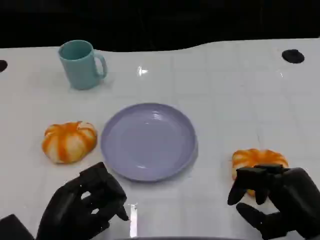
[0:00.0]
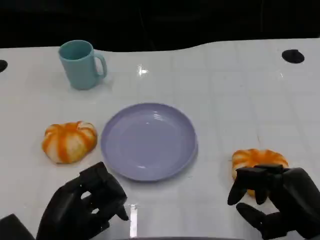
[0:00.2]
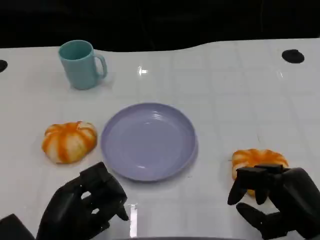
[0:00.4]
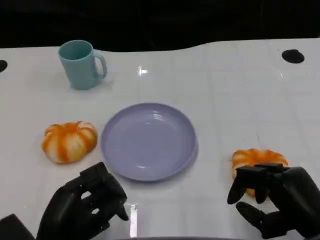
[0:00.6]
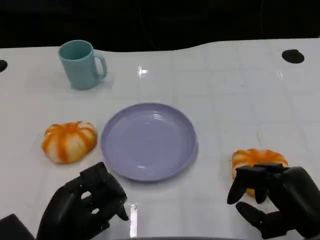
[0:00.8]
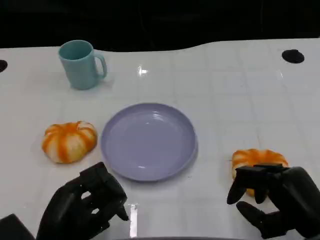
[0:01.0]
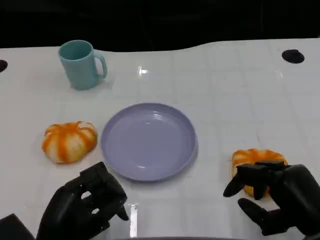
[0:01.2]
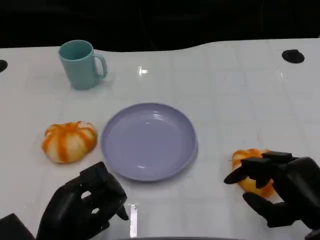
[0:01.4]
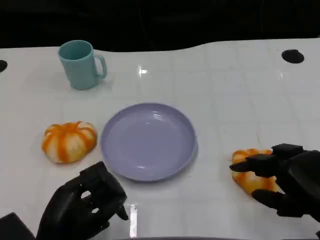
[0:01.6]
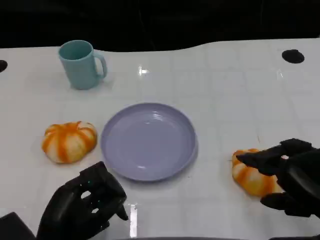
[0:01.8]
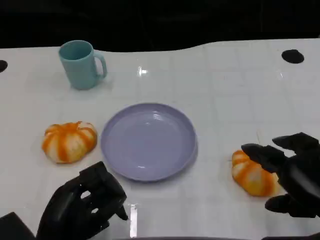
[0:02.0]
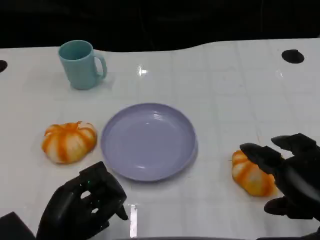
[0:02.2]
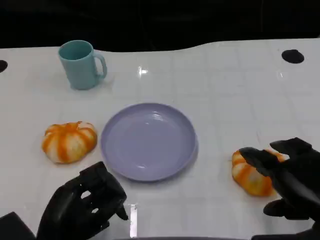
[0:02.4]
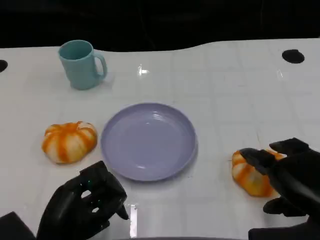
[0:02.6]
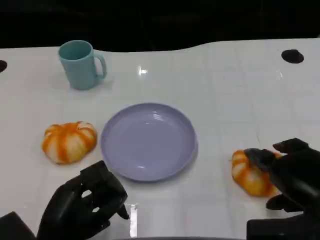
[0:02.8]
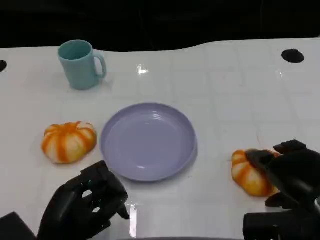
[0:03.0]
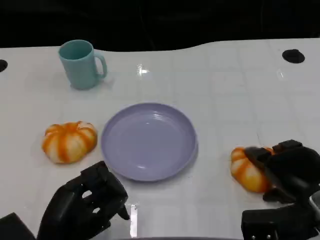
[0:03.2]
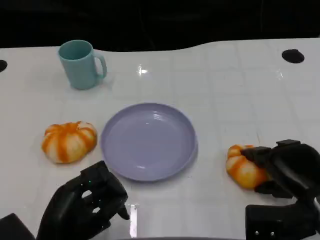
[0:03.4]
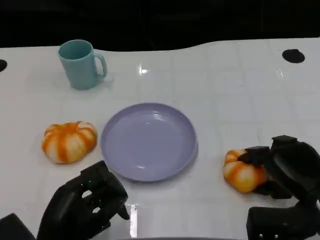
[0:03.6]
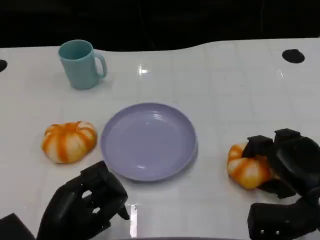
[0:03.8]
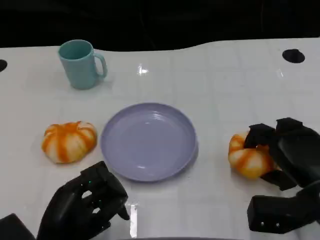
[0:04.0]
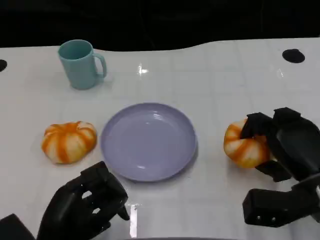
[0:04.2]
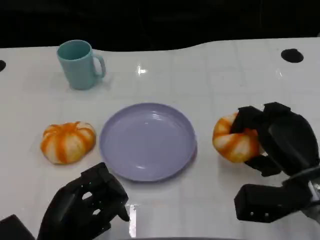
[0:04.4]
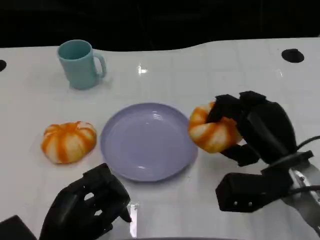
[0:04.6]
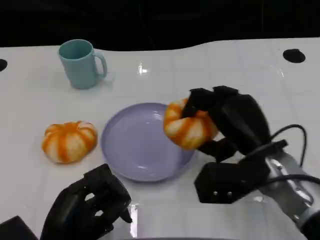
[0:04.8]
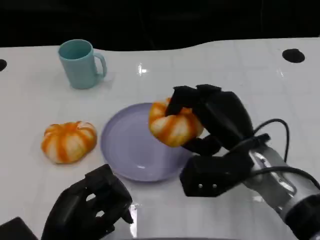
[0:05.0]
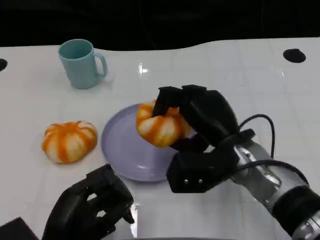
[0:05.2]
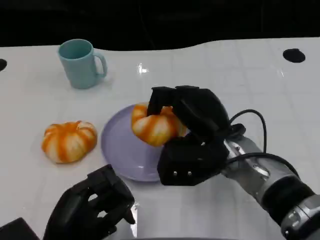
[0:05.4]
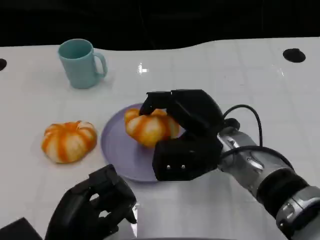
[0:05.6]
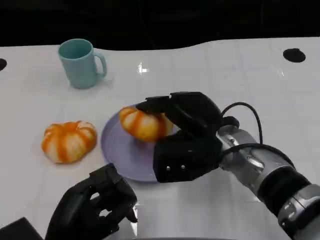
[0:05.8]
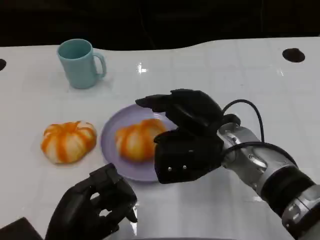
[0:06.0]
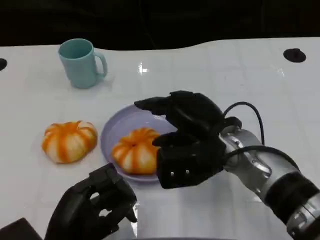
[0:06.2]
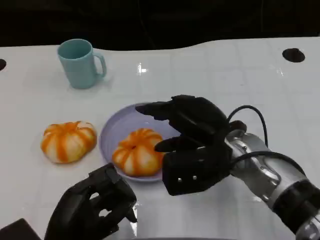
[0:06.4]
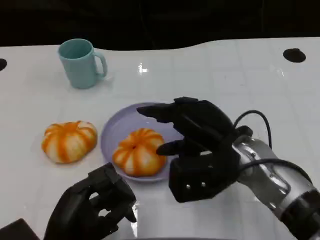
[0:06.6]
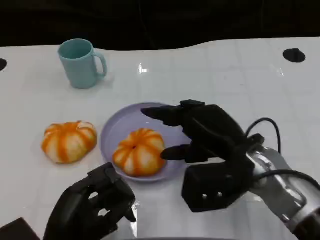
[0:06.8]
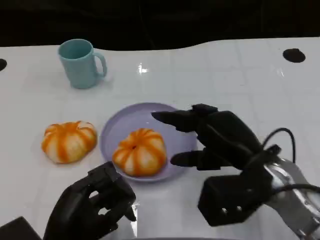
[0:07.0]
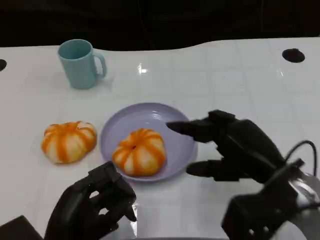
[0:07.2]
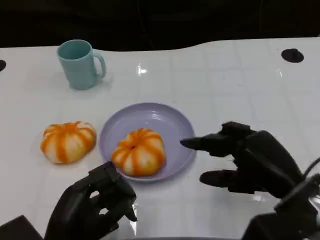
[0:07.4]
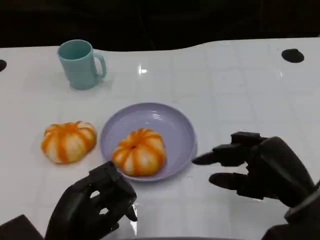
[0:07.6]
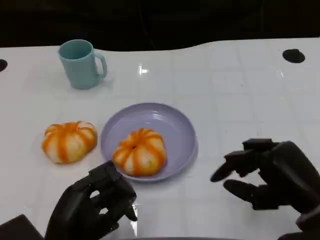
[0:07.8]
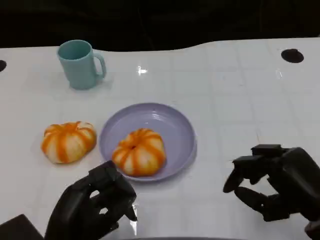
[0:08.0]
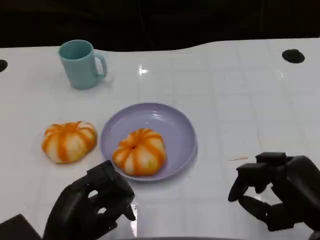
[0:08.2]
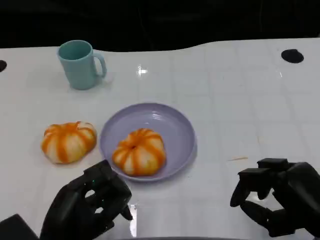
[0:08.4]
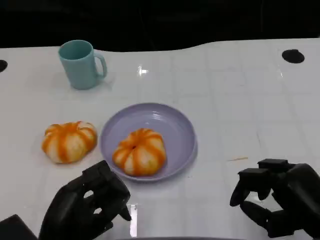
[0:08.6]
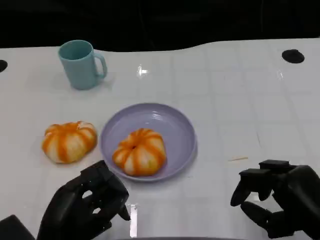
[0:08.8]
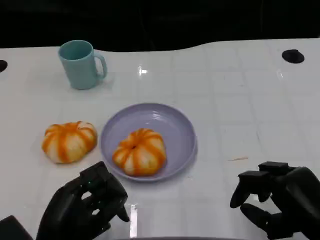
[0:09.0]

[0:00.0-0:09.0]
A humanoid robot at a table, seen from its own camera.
Task of the whole recording: Grasp the bread from the table and place it into the plate.
0:00.0 to 0:01.6: The right hand ends up approximately 5 cm from where it was.
0:01.6 to 0:03.0: The right hand shifts by about 5 cm.
0:04.4 to 0:06.0: The right hand heads to the left, covering some 10 cm.
0:06.0 to 0:07.6: The right hand travels to the right and backward by about 15 cm.
0:07.6 to 0:09.0: The right hand ends up roughly 5 cm from where it was.

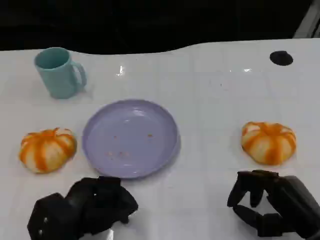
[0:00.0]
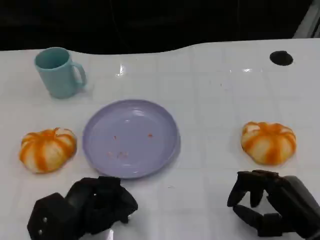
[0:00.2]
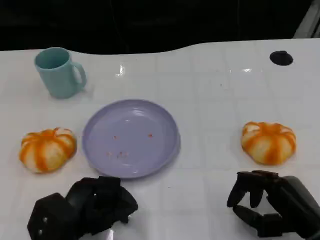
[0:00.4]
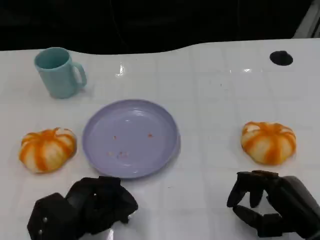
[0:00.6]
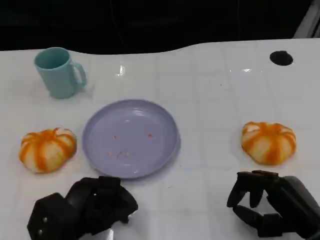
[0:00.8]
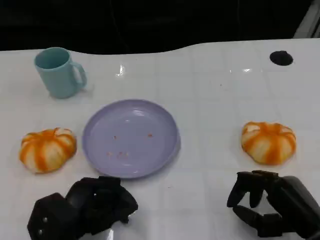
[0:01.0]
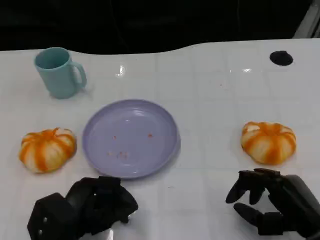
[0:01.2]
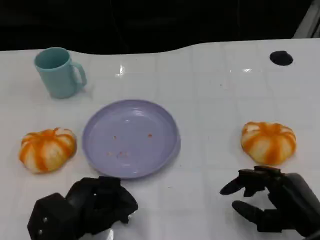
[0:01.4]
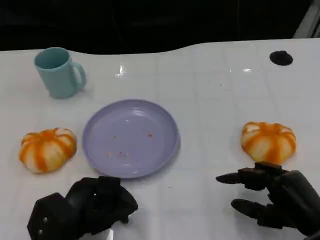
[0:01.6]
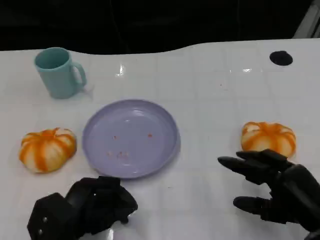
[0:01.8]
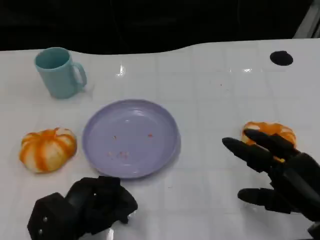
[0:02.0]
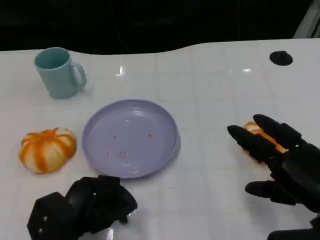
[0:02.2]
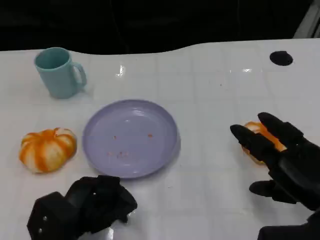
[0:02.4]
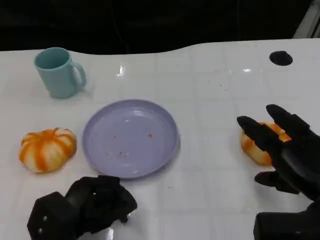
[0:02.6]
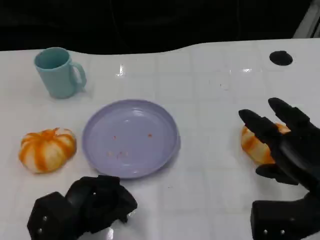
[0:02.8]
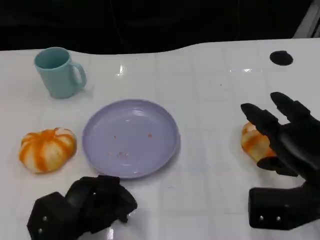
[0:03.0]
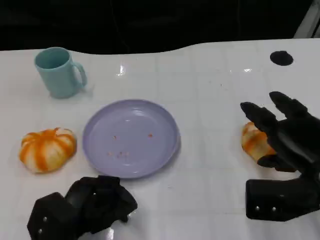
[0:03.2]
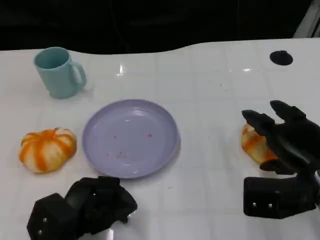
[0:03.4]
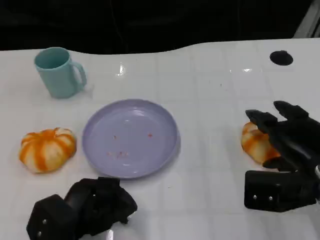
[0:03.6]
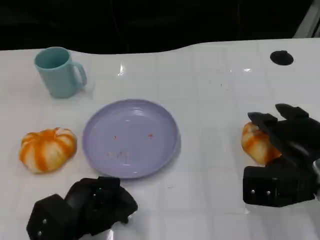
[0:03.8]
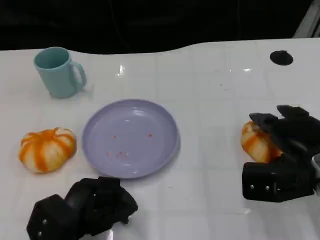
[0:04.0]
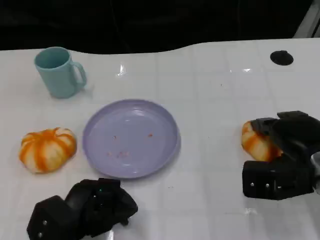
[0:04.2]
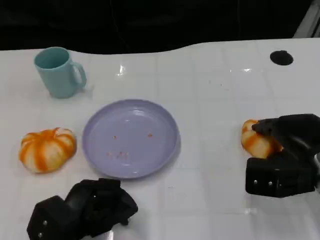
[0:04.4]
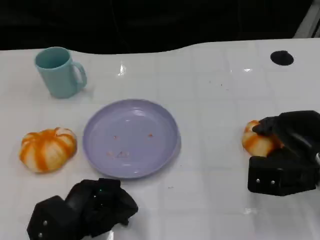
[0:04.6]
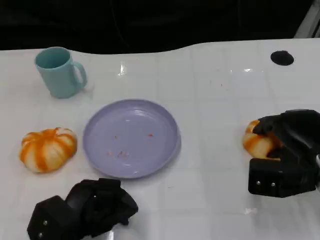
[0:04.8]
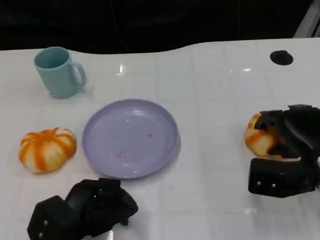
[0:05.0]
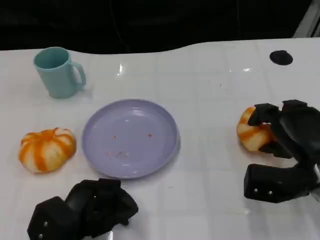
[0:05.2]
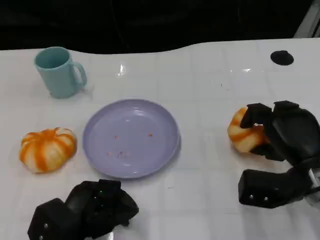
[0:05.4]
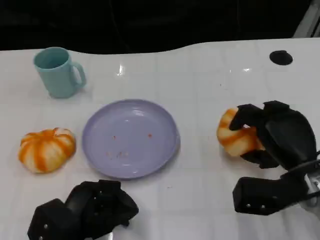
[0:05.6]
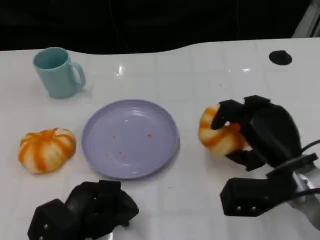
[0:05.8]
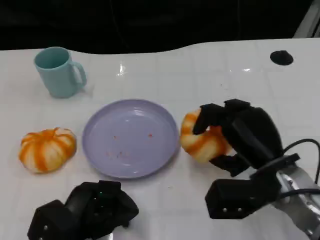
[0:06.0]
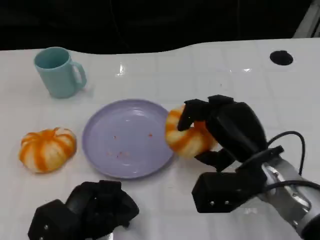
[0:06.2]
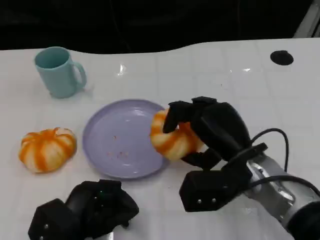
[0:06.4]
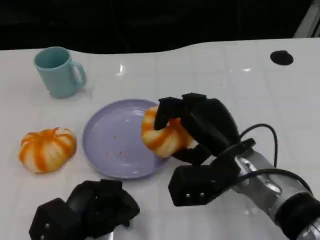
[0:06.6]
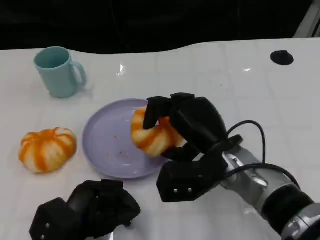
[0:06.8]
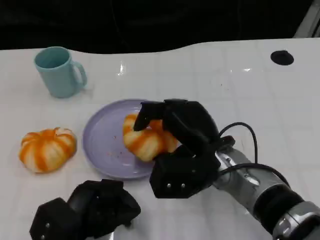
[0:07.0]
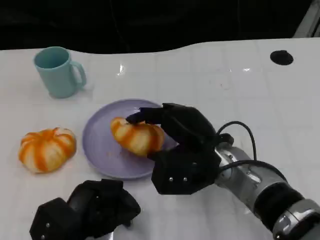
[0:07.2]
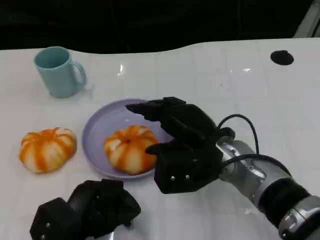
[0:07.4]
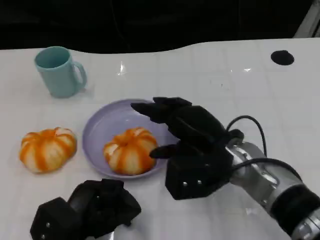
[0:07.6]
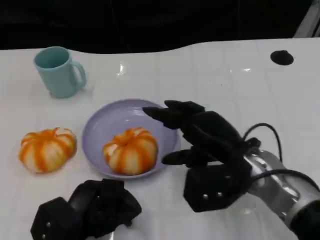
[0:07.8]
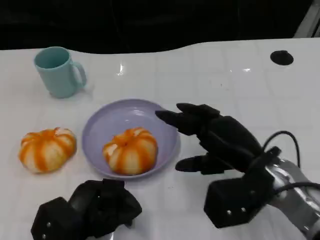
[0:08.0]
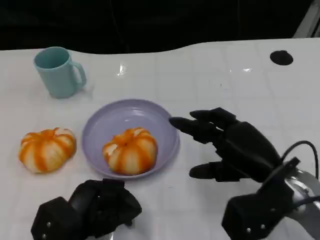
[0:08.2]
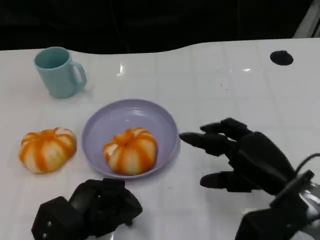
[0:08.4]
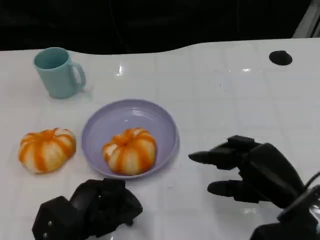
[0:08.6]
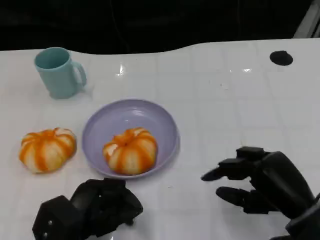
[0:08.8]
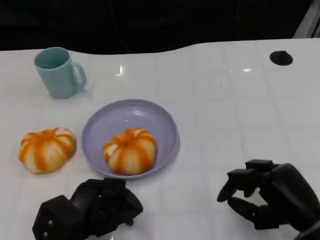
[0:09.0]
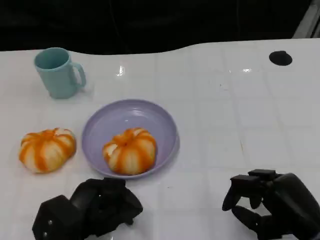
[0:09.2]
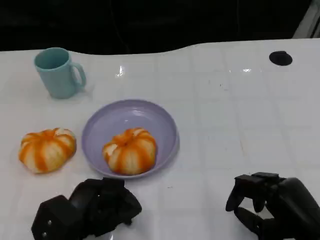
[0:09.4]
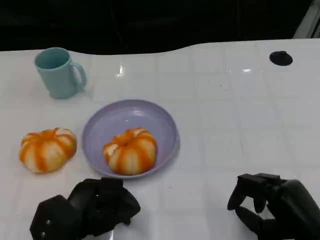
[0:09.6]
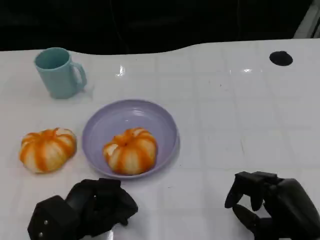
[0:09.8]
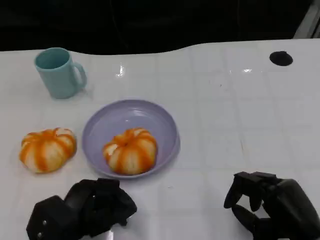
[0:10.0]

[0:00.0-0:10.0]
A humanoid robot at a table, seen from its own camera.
Task of the whole recording: Grasp the bread from the table and place it into the plate.
0:00.0 to 0:01.4: The two hands keep their place.
0:01.4 to 0:02.8: The right hand travels upward by approximately 5 cm.
0:02.8 to 0:04.2: The right hand shifts about 5 cm forward.
0:05.8 to 0:07.2: The right hand moves to the left, about 10 cm.
0:07.2 to 0:08.6: The right hand heads to the right and backward, covering approximately 15 cm.
0:08.6 to 0:10.0: The right hand shifts by roughly 5 cm.

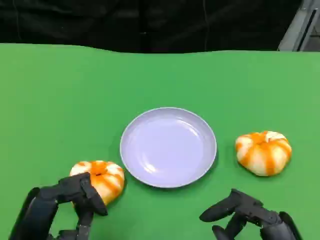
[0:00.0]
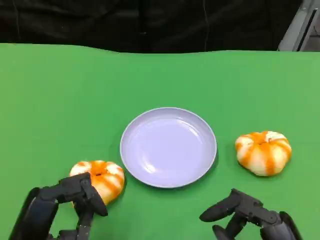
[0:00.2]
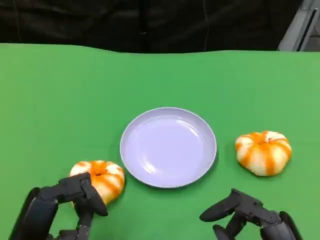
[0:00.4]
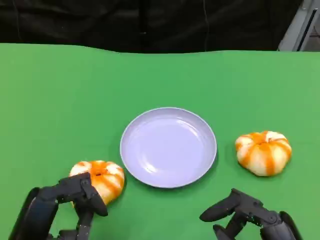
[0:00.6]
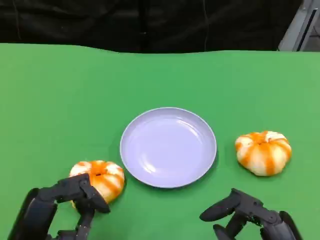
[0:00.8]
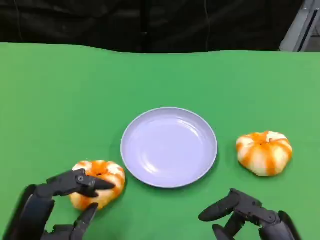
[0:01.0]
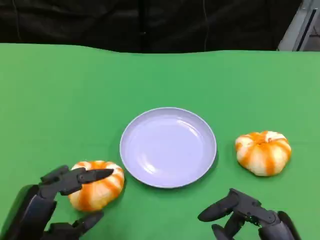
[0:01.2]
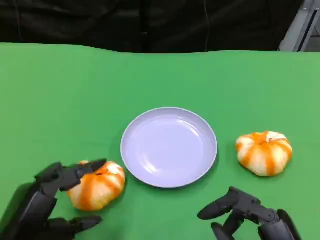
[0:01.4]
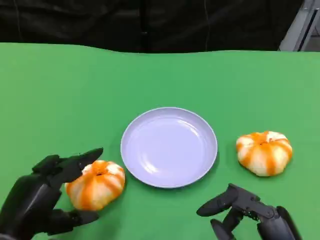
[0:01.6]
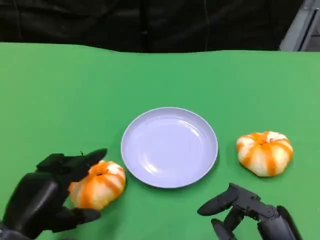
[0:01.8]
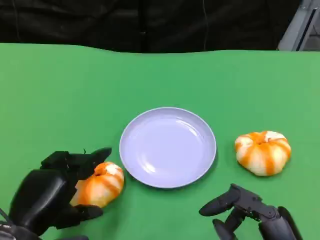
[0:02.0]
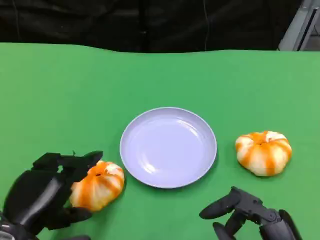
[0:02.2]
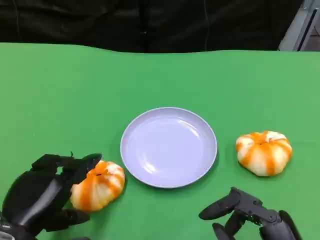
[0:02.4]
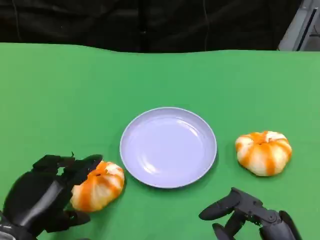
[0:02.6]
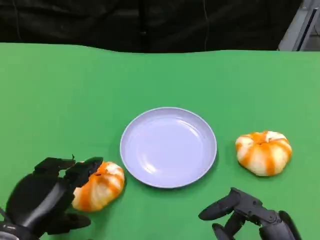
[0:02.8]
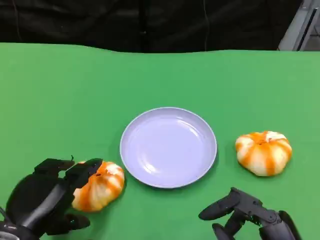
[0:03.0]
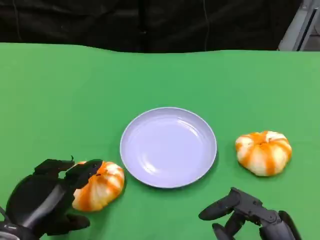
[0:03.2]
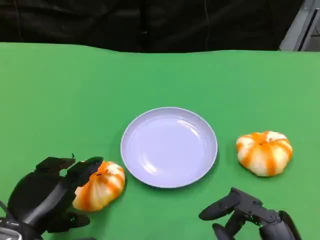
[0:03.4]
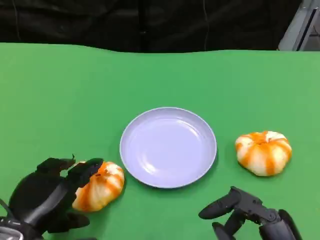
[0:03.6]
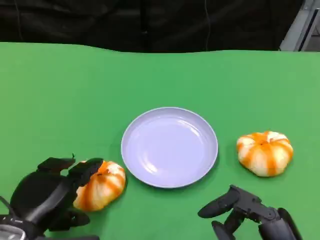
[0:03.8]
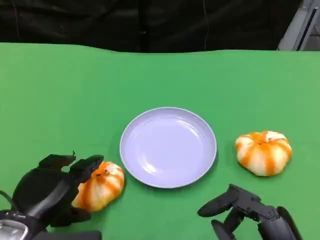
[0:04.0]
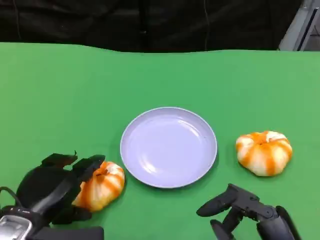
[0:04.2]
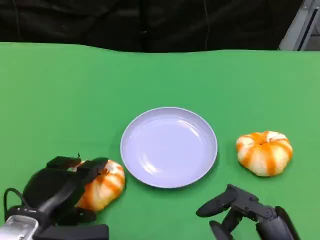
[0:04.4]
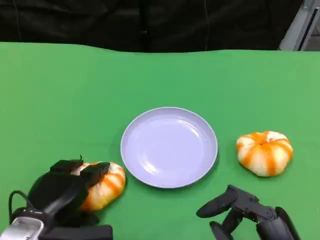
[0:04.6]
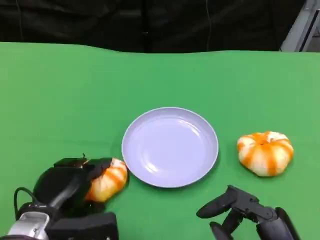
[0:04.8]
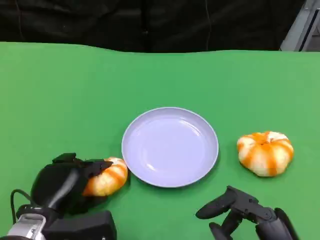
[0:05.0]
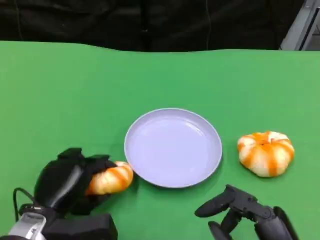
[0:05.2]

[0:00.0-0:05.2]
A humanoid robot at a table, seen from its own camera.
Task of the whole recording: Grasp the bread from the table and place it into the plate.
0:01.8 to 0:03.4: There are only small adjustments of the hands.
0:03.4 to 0:05.2: The left hand moves some 5 cm.
